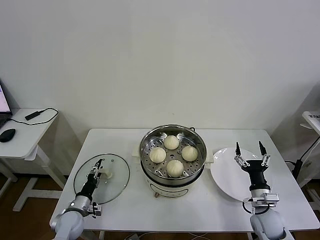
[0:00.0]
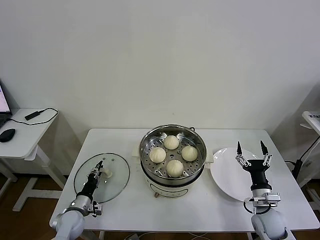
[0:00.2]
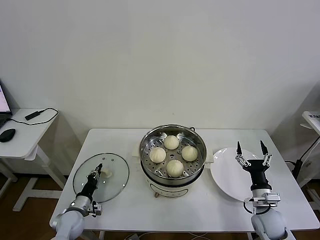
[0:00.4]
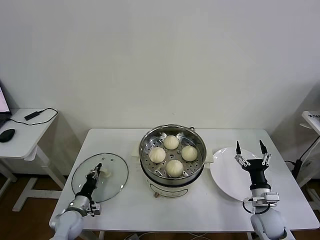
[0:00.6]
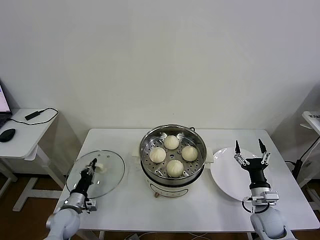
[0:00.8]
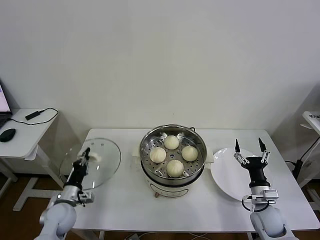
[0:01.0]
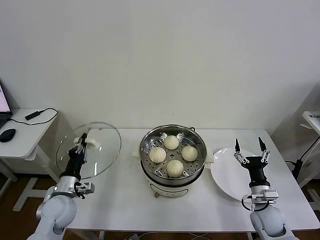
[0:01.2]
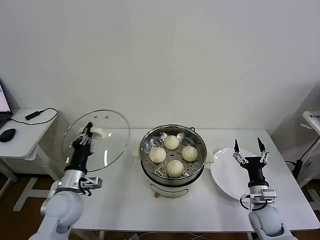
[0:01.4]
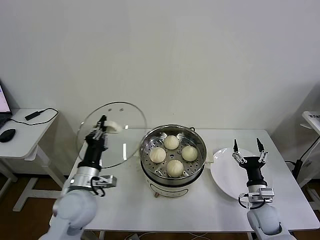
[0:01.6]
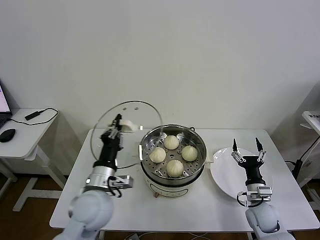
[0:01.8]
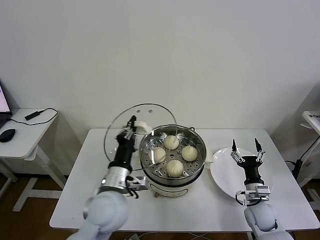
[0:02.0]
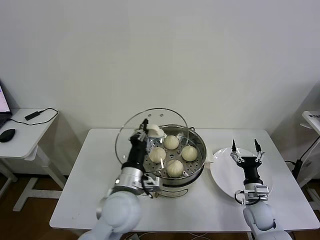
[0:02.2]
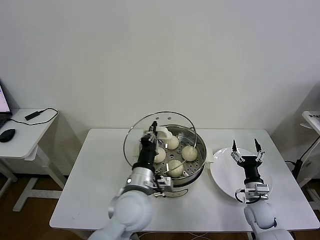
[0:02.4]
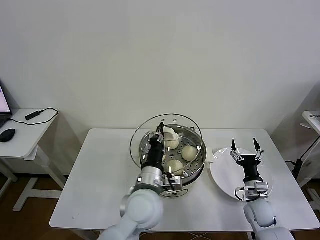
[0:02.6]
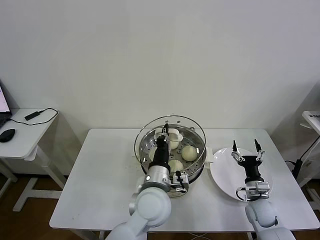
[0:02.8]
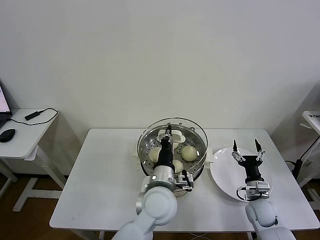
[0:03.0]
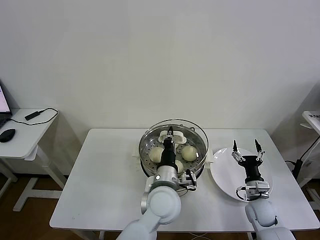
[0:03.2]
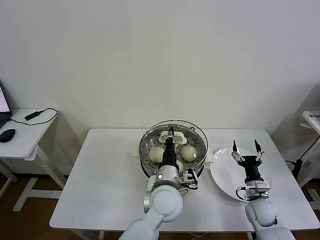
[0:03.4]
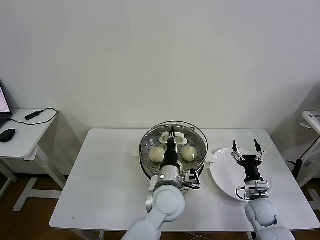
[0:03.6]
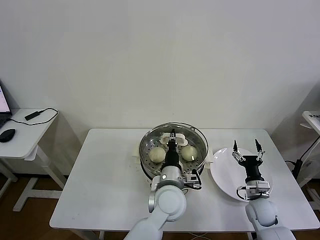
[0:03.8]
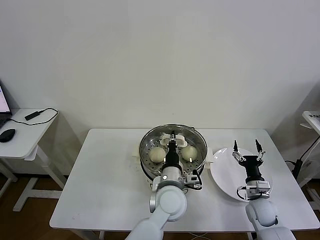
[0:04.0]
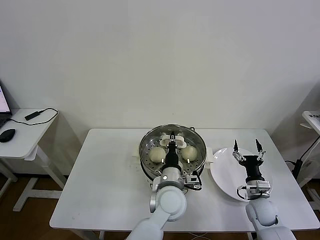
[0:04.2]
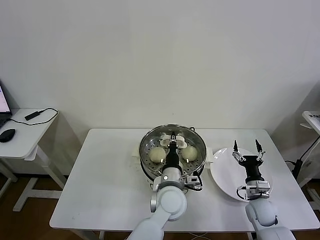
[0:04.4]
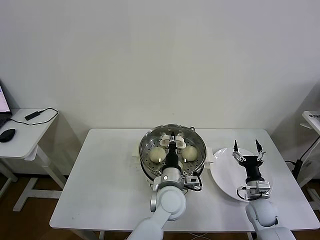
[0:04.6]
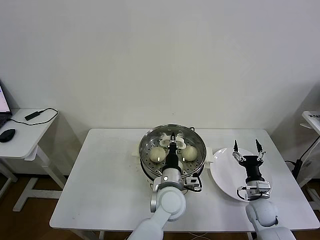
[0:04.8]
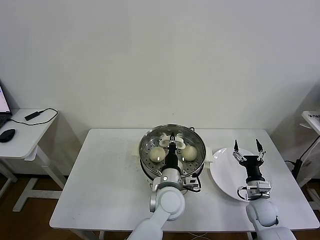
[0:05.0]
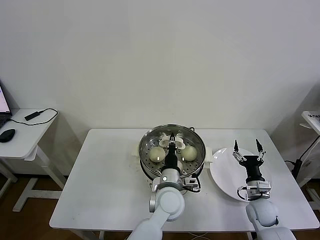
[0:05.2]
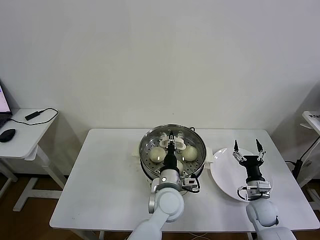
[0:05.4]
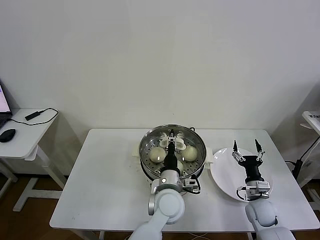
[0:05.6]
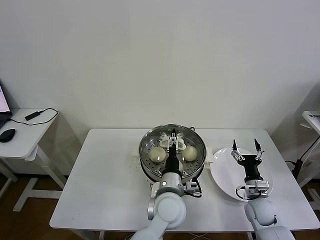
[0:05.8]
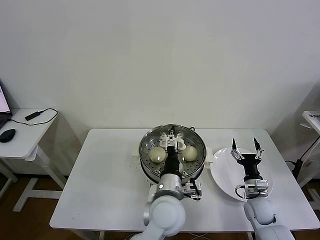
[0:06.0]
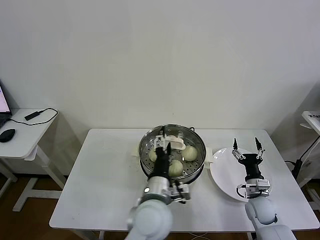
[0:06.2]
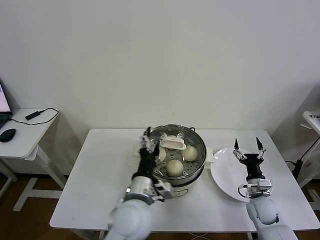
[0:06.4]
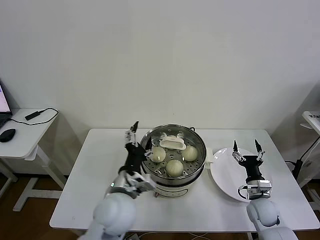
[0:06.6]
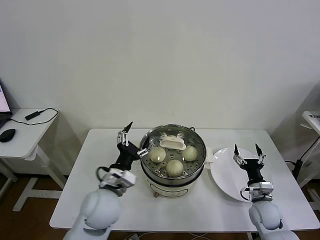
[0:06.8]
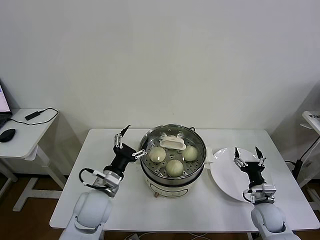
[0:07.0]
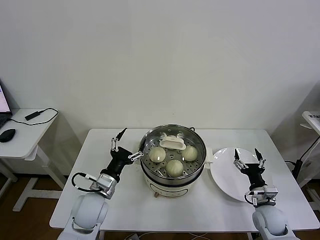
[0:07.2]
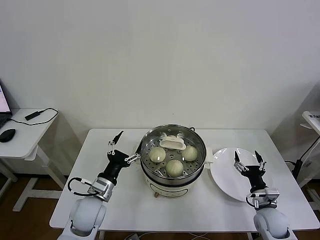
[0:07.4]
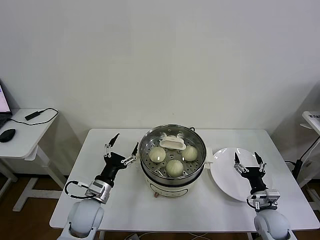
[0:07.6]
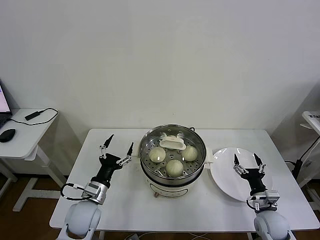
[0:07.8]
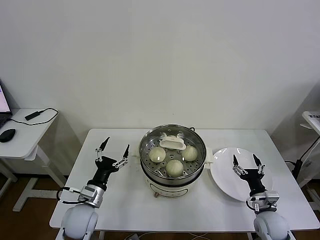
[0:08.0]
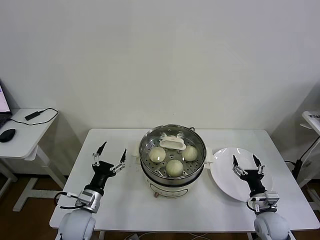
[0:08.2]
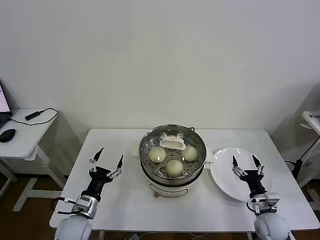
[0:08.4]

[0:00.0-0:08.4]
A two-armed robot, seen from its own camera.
Task of the whole recording: take steamed baozi put them in steamer then cover it.
Step, 0:00.8 to 0:05.6: Place the pot lid on the steamer with left gripper.
0:00.0 to 0:01.4: The left gripper moves upward, some 15 cm, and closes up.
0:01.4 to 0:02.8: The left gripper heads to the right, covering approximately 25 cm.
0:02.8 to 0:04.2: The left gripper shifts some 5 cm to the right.
0:04.2 to 0:05.6: The left gripper opens.
0:05.6 to 0:07.0: The left gripper heads to the left, covering approximately 20 cm, and opens up.
0:07.0 to 0:08.4: The left gripper goes approximately 15 cm downward and to the left.

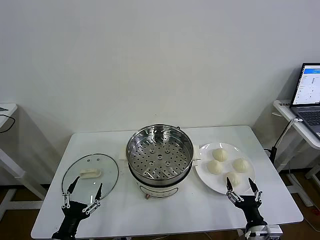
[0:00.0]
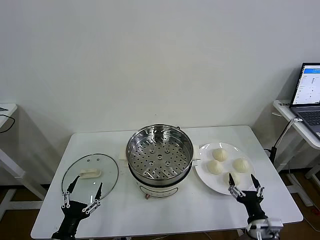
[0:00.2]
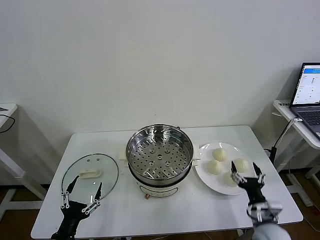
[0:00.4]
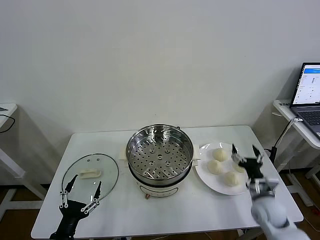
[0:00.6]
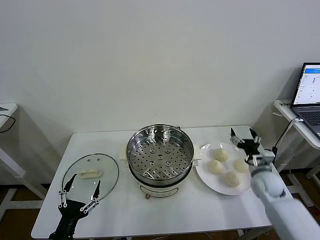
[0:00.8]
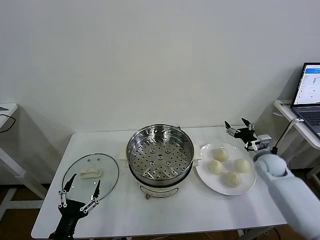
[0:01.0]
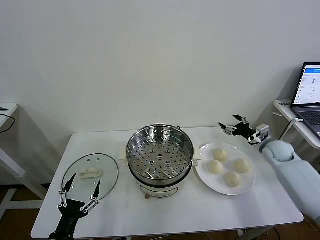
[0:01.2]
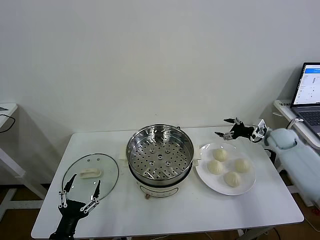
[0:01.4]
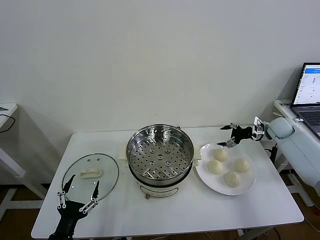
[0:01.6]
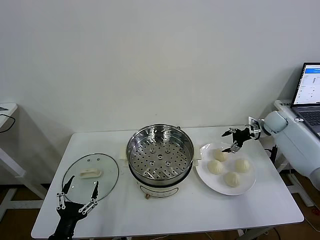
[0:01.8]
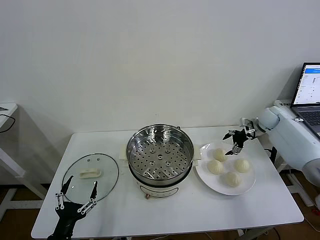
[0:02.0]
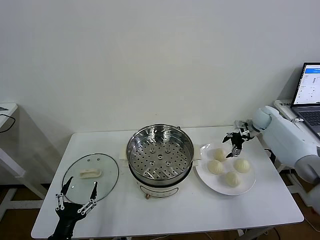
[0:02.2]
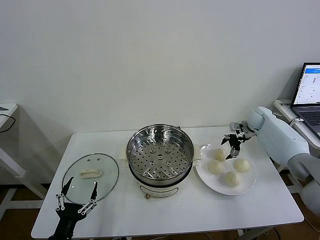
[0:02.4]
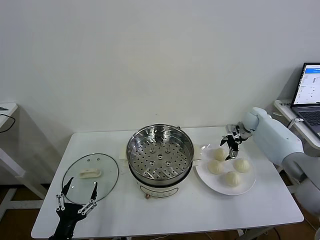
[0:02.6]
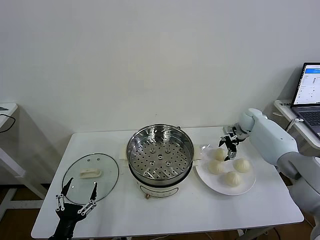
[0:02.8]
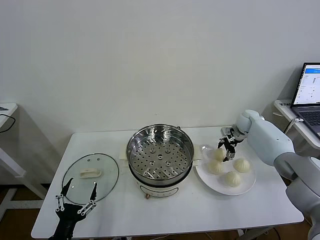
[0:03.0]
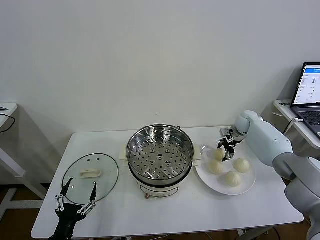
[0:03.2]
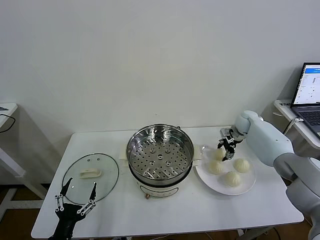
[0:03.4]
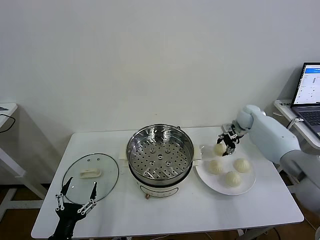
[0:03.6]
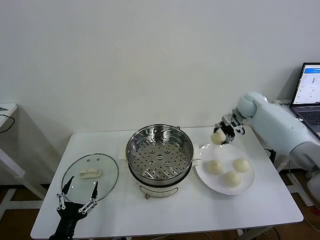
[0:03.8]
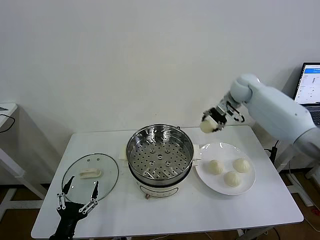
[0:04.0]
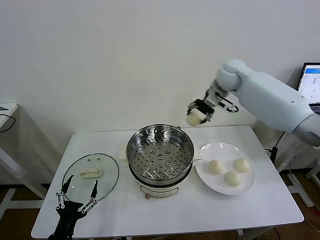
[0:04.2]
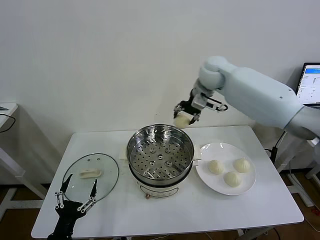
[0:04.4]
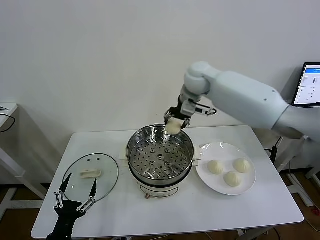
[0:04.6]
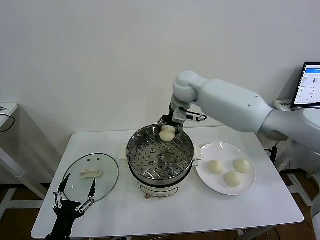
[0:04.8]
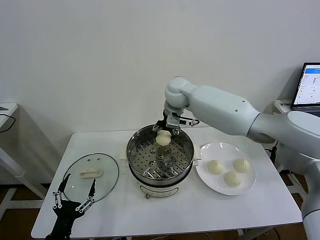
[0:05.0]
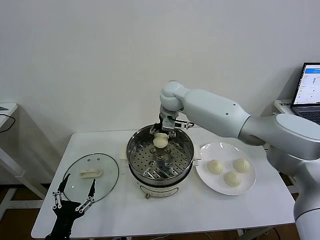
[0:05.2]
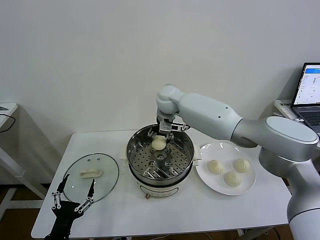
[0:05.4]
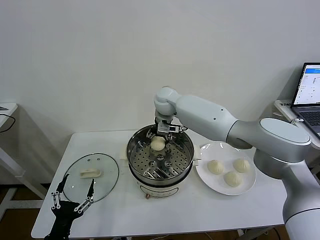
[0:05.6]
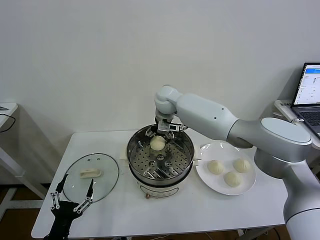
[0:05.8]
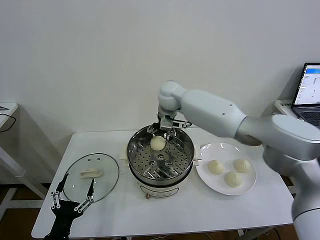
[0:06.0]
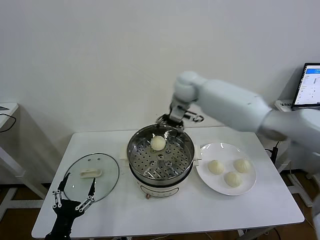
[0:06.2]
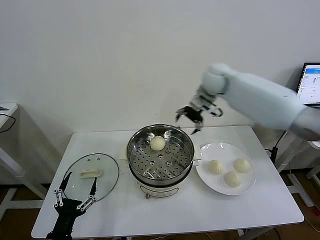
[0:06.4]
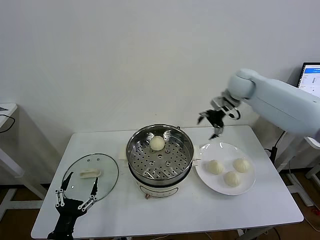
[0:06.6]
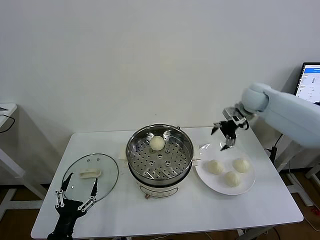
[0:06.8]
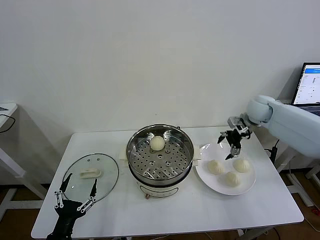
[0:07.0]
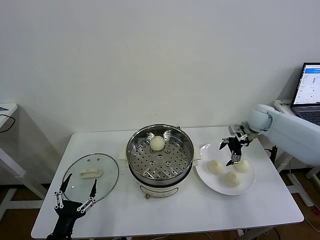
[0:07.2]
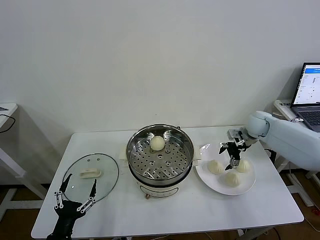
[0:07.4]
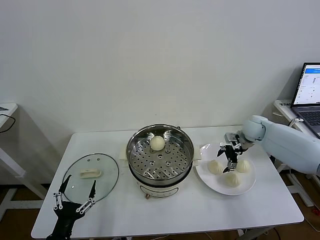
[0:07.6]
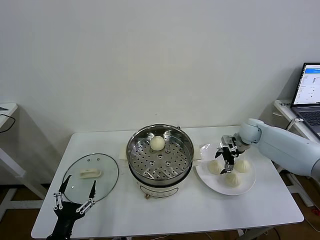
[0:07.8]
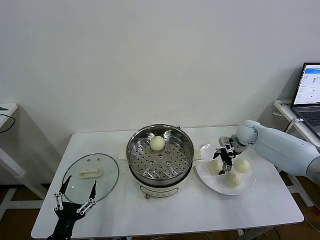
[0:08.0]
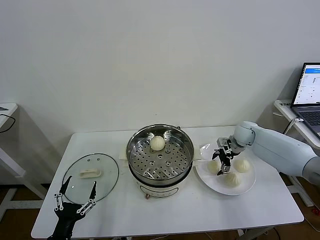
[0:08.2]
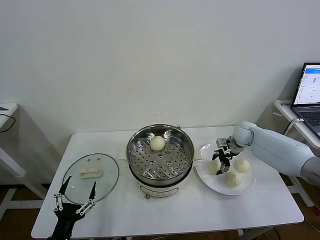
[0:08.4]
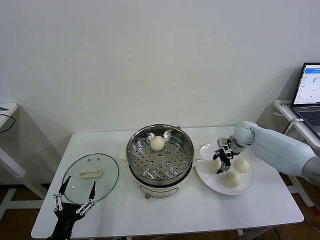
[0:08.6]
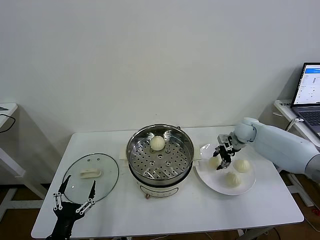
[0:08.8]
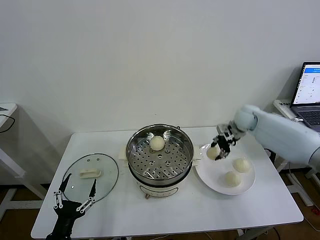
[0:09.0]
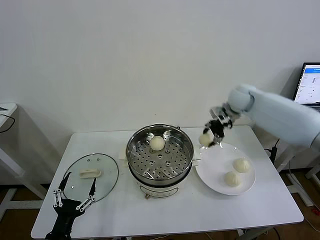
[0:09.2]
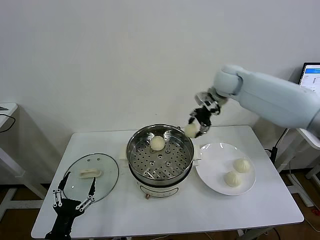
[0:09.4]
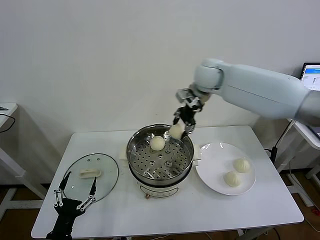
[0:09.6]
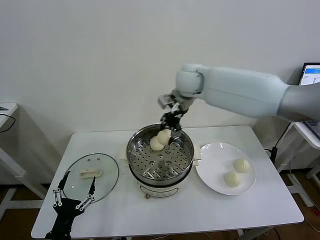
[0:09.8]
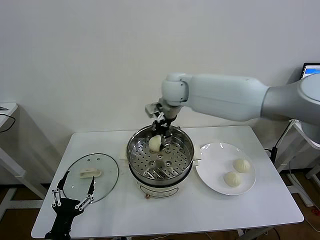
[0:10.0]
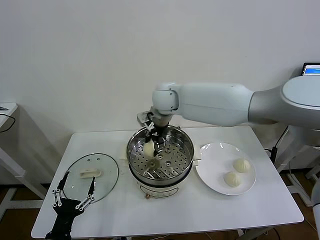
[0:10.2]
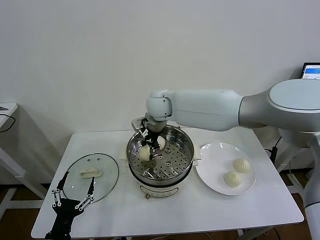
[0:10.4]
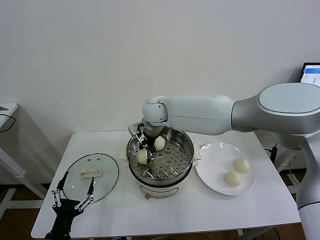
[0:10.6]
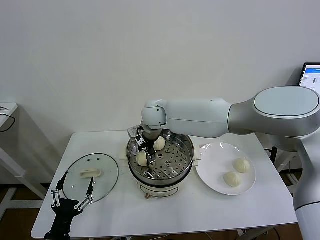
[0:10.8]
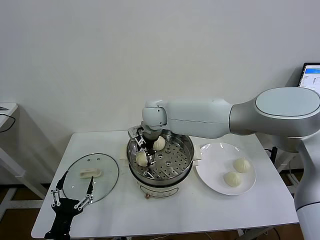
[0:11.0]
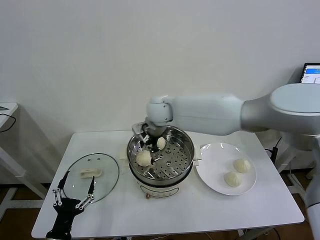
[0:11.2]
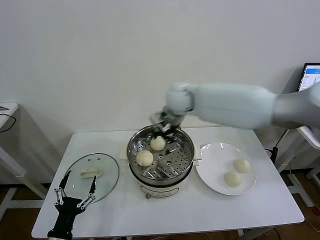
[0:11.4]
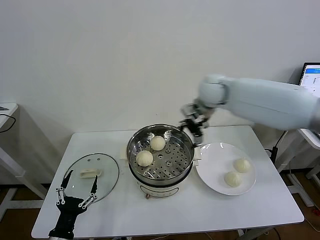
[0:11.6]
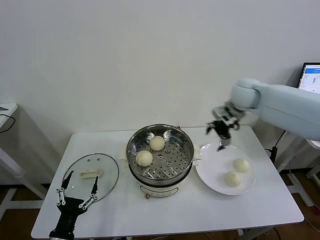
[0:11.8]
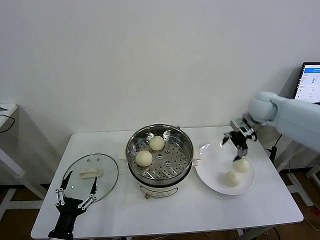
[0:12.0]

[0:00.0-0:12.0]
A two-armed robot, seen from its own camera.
Task of the whole recording: take steamed baozi put them in steamer then cover it.
Step, 0:00.0 to 0:03.2: Grasp the baozi in the plate with right gripper.
Step, 0:03.4 to 0:05.8: Place the baozi on the steamer with right gripper.
Step, 0:06.0 to 0:08.4: Grasp the baozi in the plate with right gripper.
Step, 0:08.6 to 0:11.0: Place the baozi on the steamer with right gripper.
0:01.6 to 0:03.0: The right gripper moves to the left and forward, some 10 cm, and closes up.
0:03.0 to 0:04.4: The right gripper goes about 35 cm upward and to the left.
0:04.4 to 0:06.0: The right gripper goes approximately 10 cm to the left and downward, and opens up.
0:06.0 to 0:07.6: The right gripper heads to the right and downward, covering about 35 cm.
0:07.6 to 0:09.0: The right gripper goes about 10 cm upward, and closes.
0:09.0 to 0:10.4: The right gripper travels to the left by approximately 30 cm.
0:10.4 to 0:12.0: The right gripper shifts approximately 35 cm to the right, and opens up.

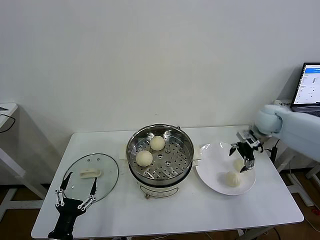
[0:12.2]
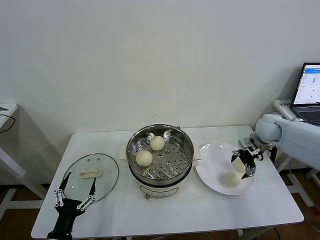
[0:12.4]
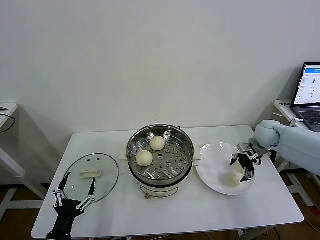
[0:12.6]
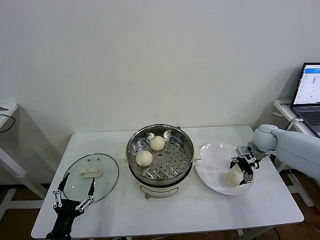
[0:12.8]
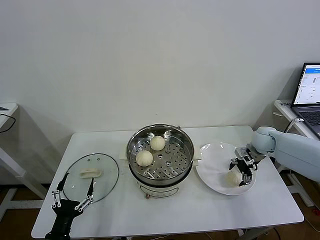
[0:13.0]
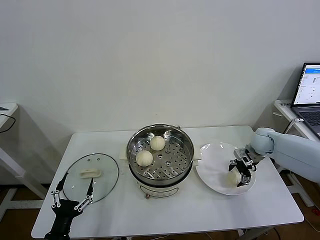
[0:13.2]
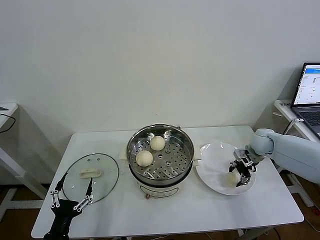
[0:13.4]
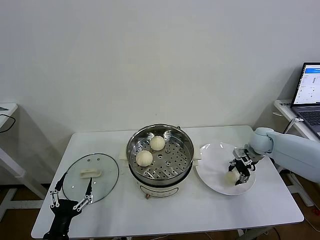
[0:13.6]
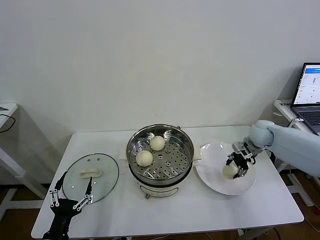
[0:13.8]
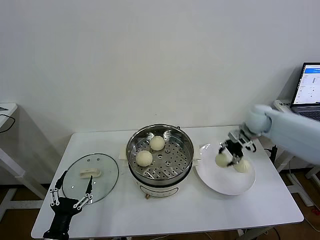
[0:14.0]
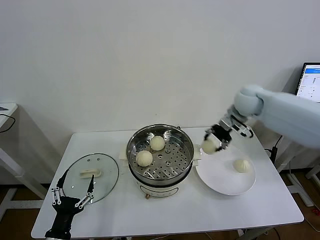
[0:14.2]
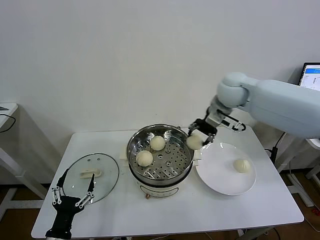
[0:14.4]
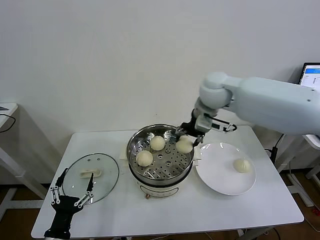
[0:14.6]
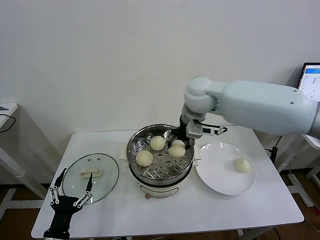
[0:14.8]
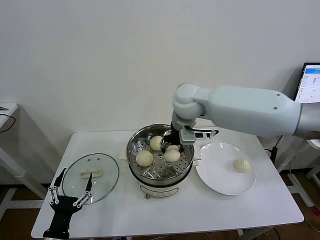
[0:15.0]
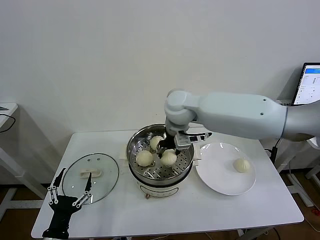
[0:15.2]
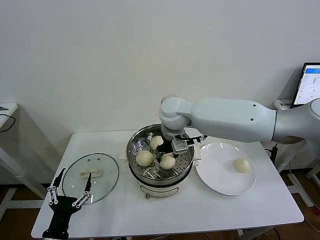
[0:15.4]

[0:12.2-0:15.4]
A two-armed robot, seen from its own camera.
Task of the whole recording: take steamed baozi put them in steamer then cover it.
Step, 0:12.2 to 0:13.4: Grasp the baozi in the plate with right gripper.
0:12.2 to 0:13.8: The right gripper closes up.
0:13.8 to 0:15.4: The right gripper heads to the left, covering some 35 cm.
